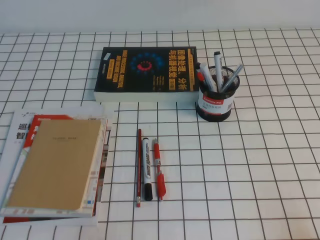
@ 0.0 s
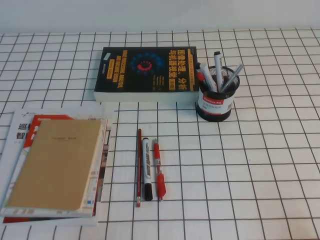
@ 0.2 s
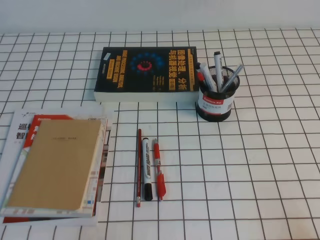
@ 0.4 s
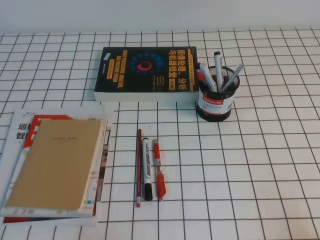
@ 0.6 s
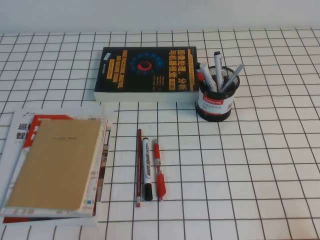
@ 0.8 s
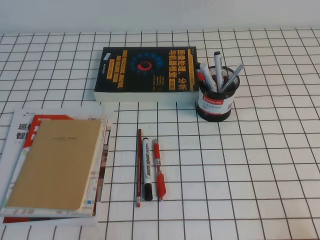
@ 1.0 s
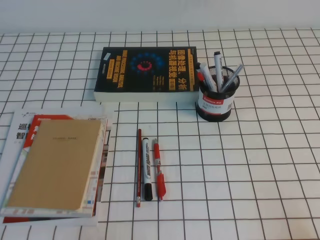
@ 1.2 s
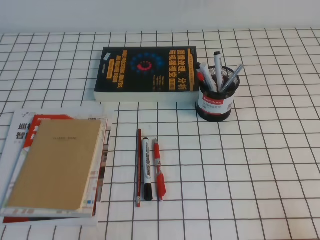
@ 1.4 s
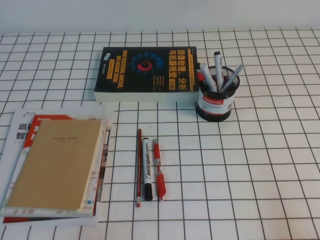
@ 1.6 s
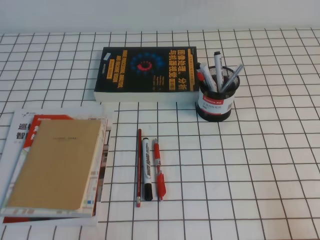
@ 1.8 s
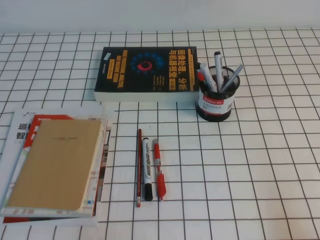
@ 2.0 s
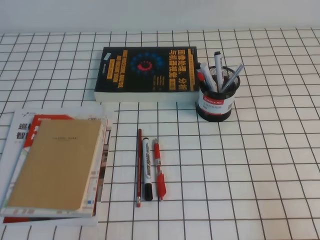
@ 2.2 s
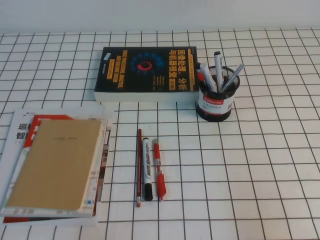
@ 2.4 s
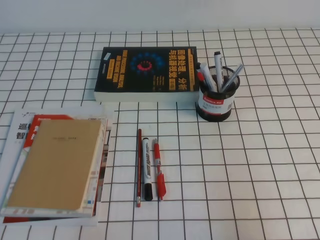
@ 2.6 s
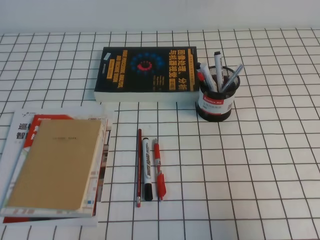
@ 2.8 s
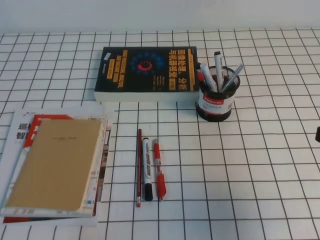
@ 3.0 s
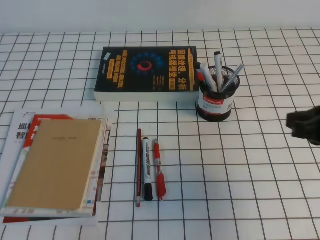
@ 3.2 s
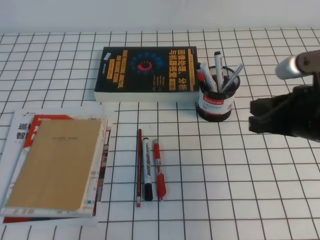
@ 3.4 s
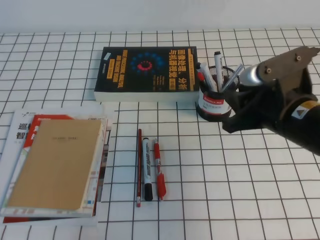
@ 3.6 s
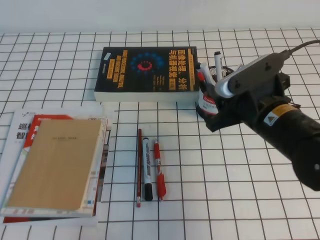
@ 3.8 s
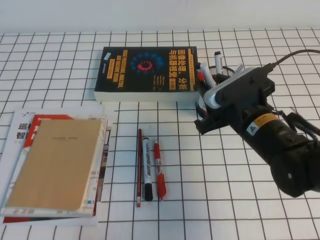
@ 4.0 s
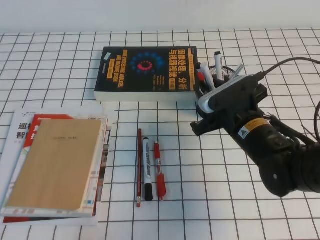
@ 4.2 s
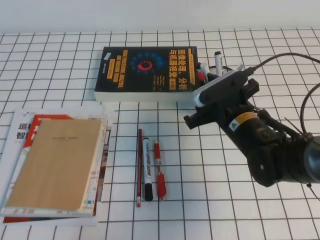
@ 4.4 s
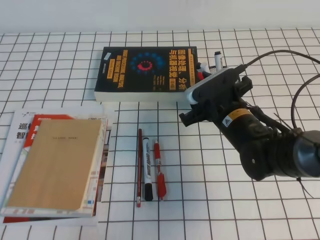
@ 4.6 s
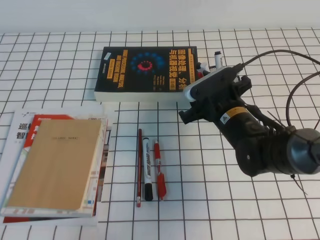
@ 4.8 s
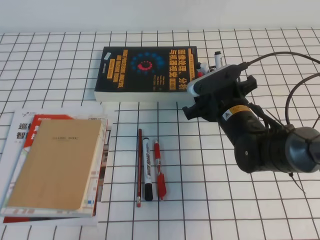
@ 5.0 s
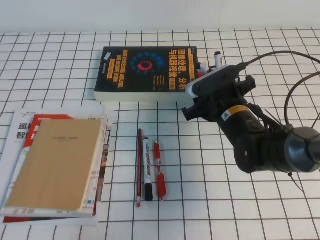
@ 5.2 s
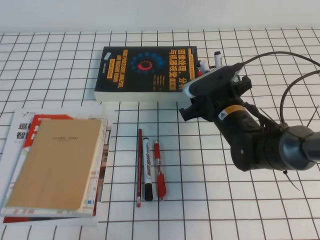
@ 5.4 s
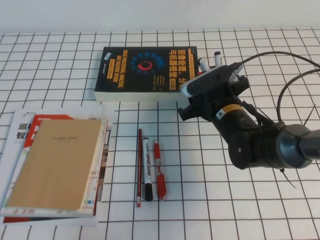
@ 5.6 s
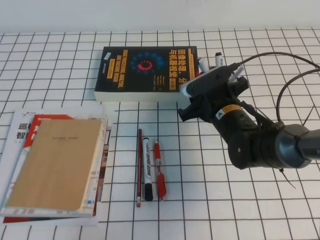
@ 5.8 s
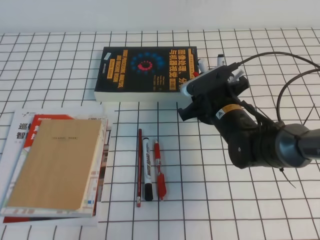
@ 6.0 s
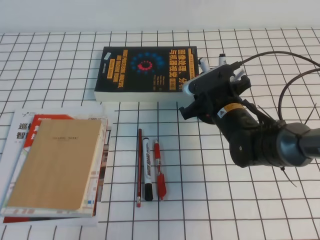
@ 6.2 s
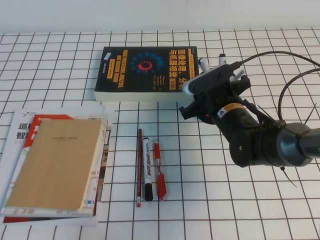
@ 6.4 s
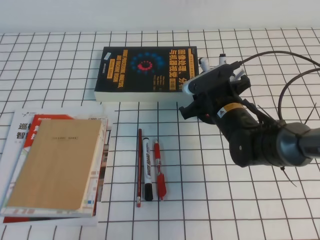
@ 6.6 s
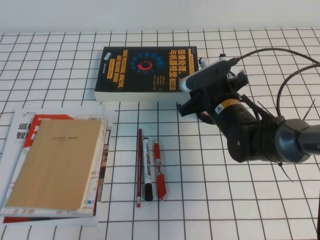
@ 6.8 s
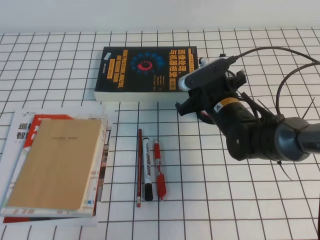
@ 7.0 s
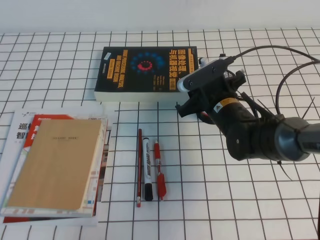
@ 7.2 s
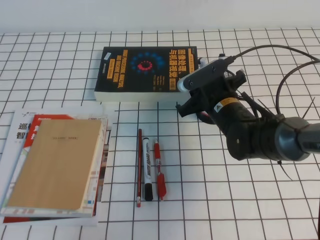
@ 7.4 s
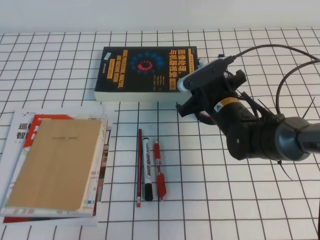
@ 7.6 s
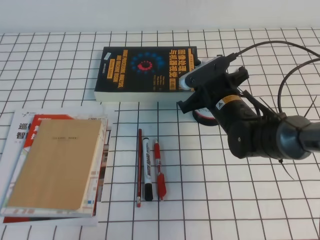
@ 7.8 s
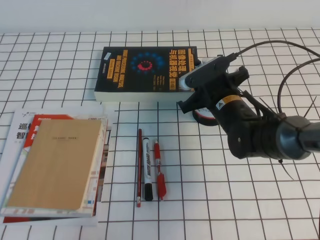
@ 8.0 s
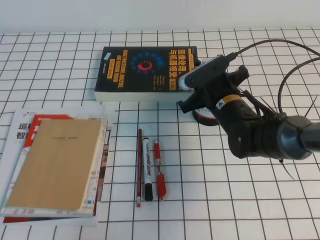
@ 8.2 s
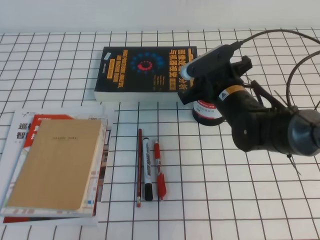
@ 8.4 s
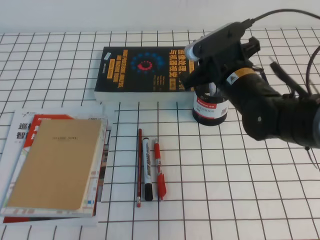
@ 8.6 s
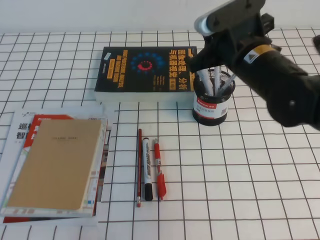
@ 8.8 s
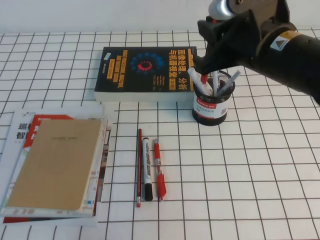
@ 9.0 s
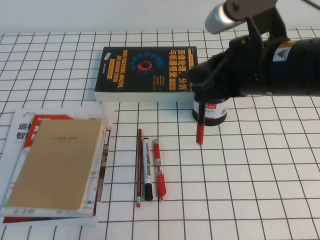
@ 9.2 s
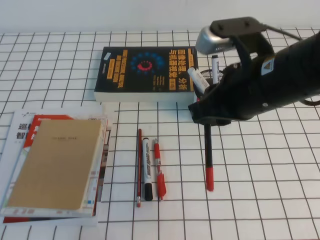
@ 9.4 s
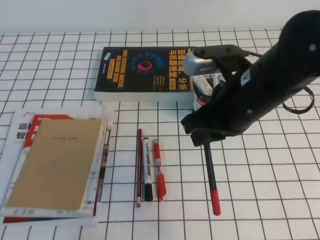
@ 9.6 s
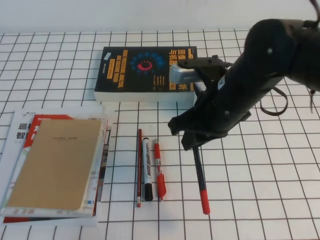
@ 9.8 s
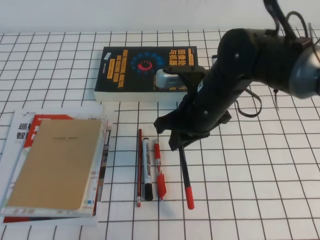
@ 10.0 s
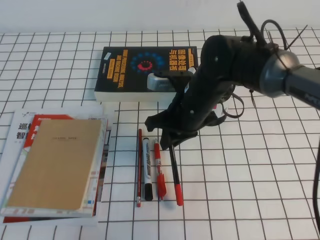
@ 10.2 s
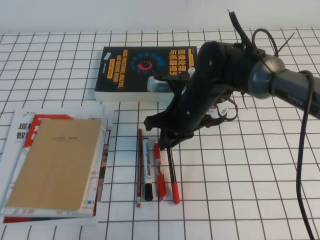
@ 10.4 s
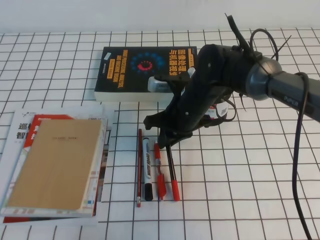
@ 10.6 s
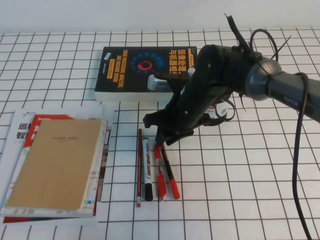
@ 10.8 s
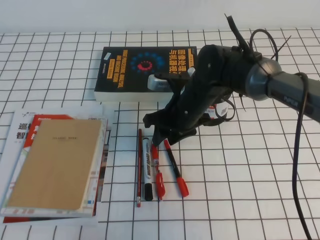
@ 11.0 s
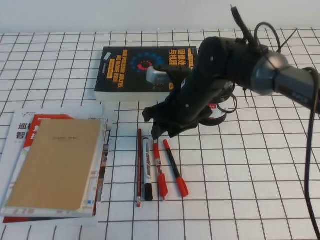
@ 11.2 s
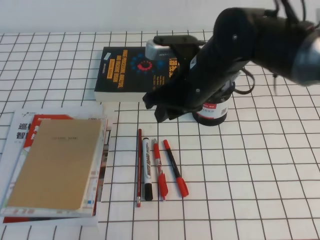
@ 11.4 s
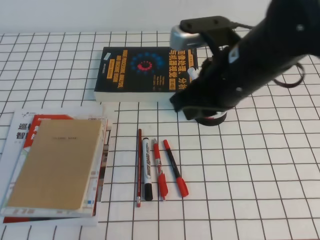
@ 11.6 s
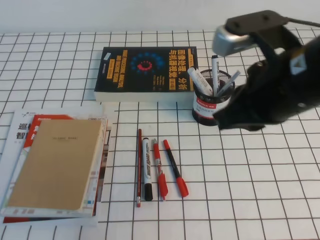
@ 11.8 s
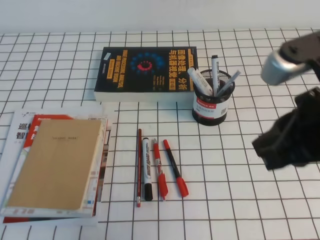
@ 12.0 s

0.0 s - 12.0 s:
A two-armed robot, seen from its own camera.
1.6 s - 3.0 s: The right gripper moves forward and upward, approximately 15 cm.
3.0 s - 4.4 s: The right gripper heads to the left, forward and downward, covering roughly 25 cm, and opens up.
4.4 s - 6.0 s: The grippers make only small movements.
6.0 s - 7.6 s: Both grippers stay about where they are.
7.6 s - 9.0 s: The right gripper heads upward and backward, covering roughly 20 cm.
9.0 s - 10.4 s: The right gripper travels downward, to the left and forward by some 15 cm.
10.4 s - 12.0 s: The right gripper shifts about 25 cm backward, upward and to the right, and opens, then closes once more.

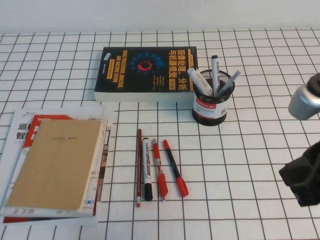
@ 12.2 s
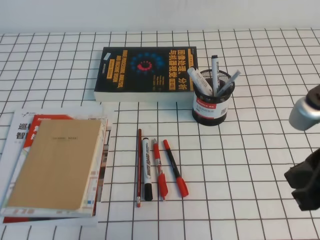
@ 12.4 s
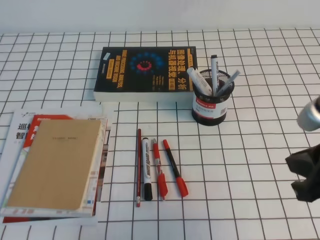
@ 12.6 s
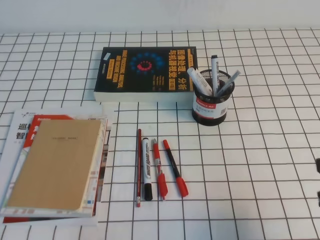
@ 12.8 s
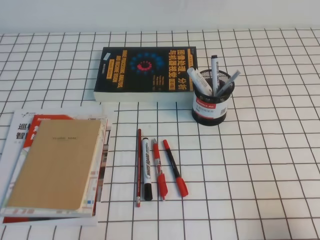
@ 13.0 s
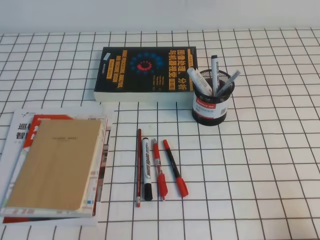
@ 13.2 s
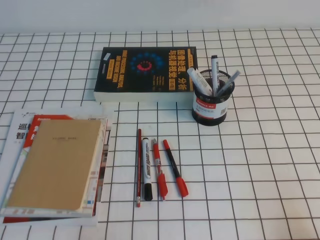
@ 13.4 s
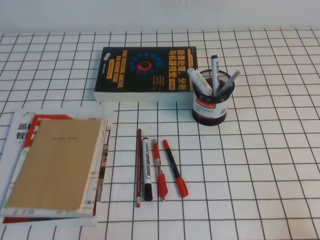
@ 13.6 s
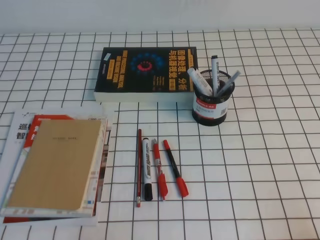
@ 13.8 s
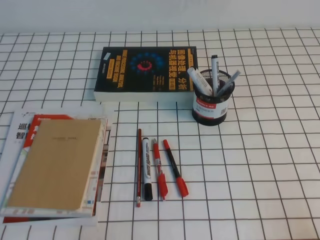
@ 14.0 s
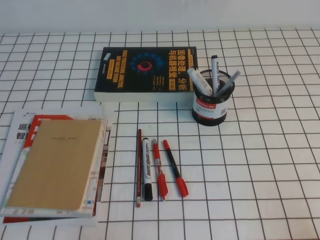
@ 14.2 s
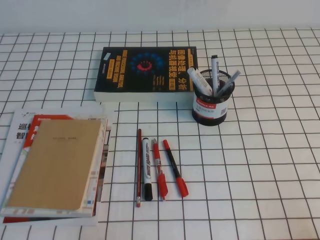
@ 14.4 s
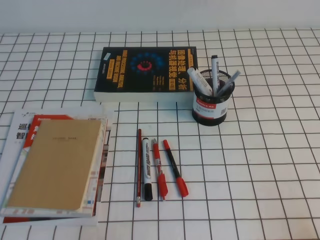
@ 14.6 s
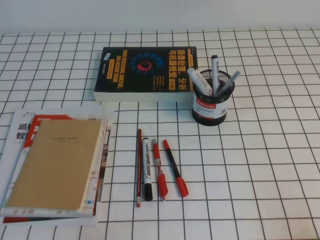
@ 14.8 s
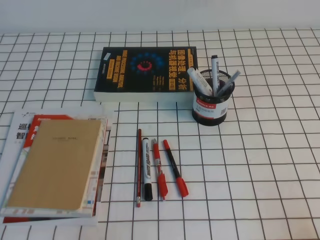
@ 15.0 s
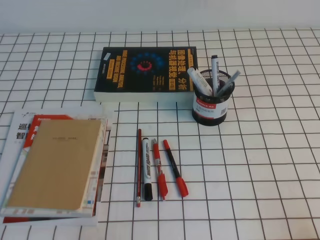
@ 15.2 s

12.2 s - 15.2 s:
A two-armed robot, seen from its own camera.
Step, 12.2 s - 15.2 s: Pick up the pen from the pen holder.
12.2 s - 13.8 s: The right gripper is displaced downward, to the right and backward by approximately 25 cm.
13.8 s - 15.2 s: Neither gripper changes place.
